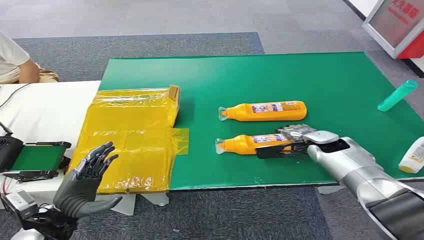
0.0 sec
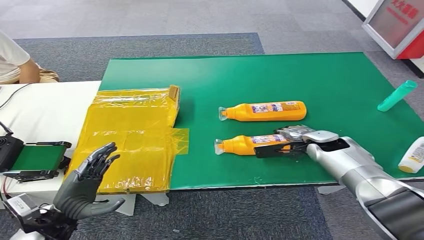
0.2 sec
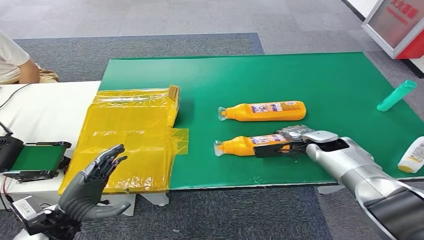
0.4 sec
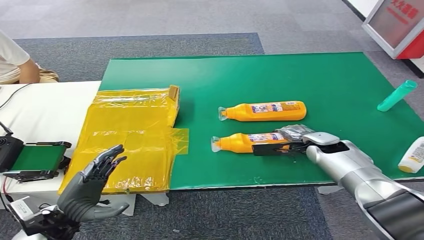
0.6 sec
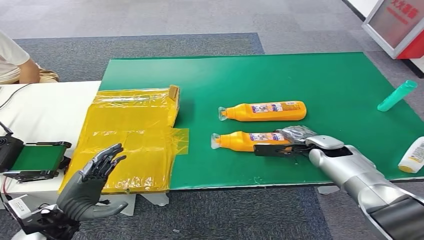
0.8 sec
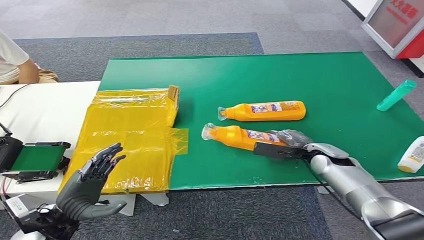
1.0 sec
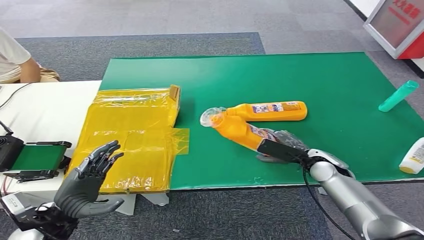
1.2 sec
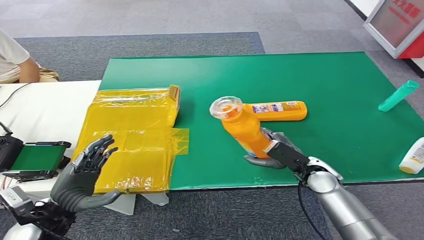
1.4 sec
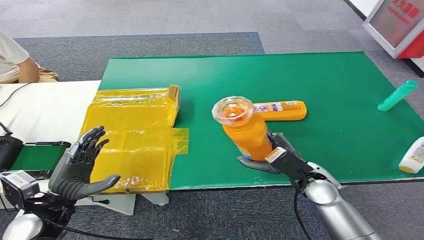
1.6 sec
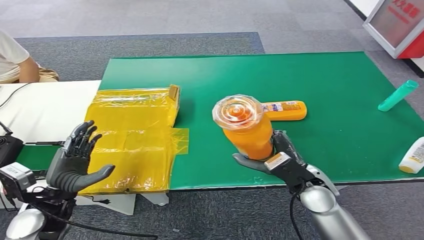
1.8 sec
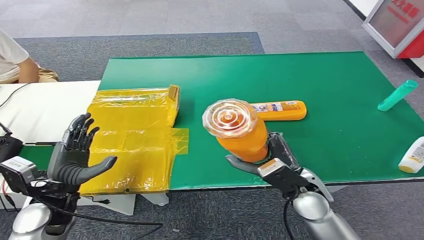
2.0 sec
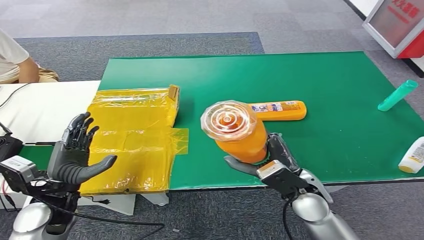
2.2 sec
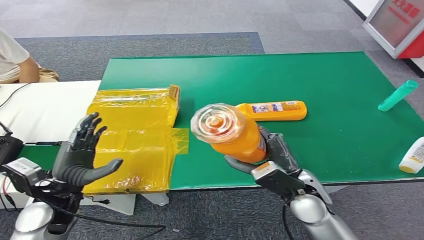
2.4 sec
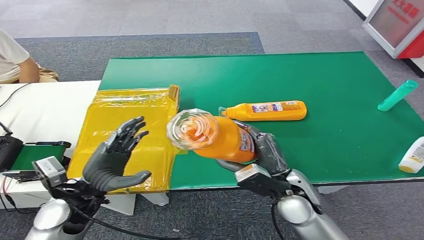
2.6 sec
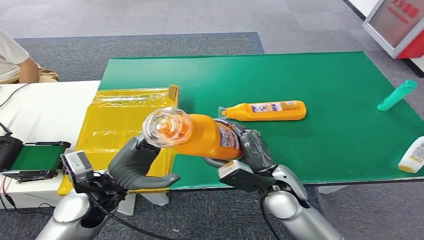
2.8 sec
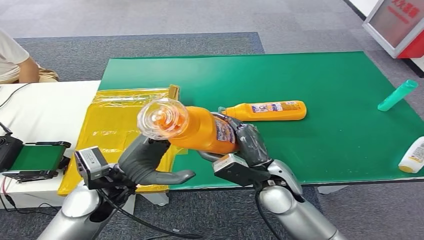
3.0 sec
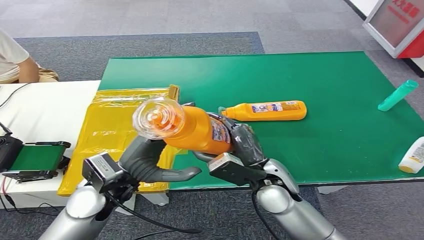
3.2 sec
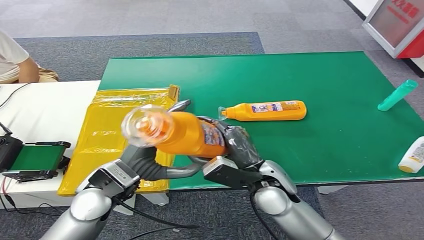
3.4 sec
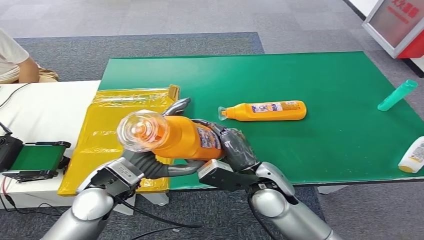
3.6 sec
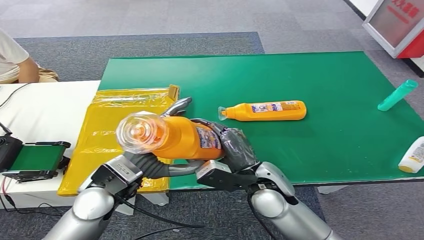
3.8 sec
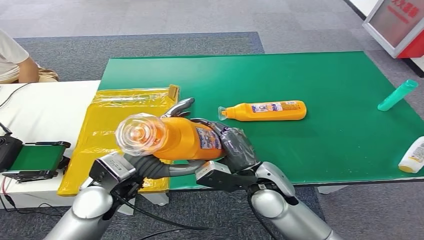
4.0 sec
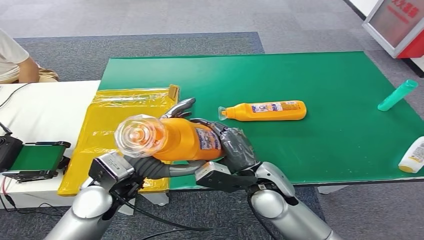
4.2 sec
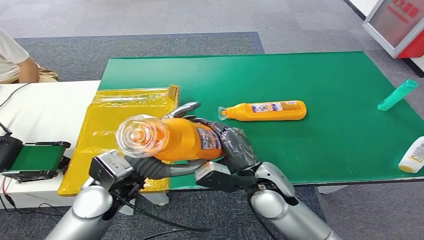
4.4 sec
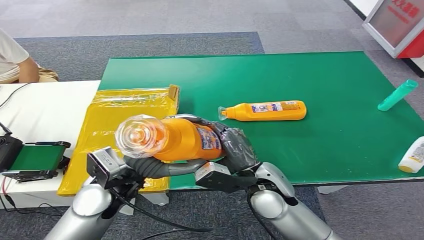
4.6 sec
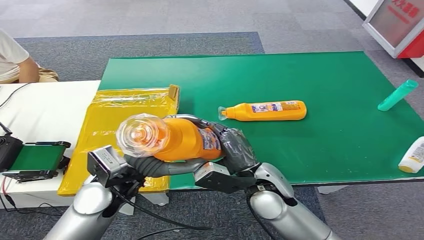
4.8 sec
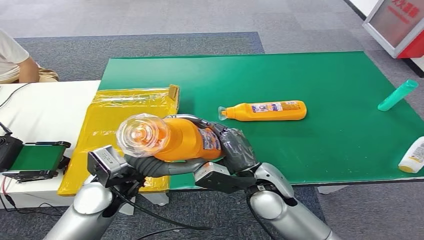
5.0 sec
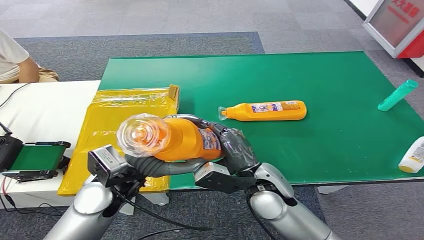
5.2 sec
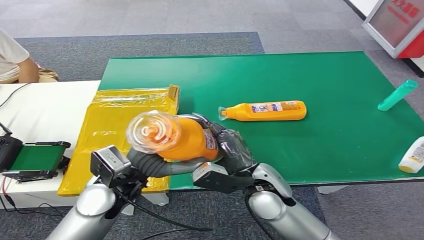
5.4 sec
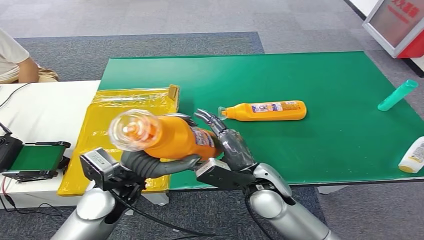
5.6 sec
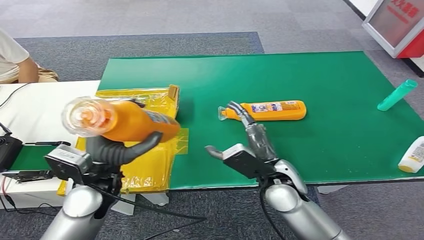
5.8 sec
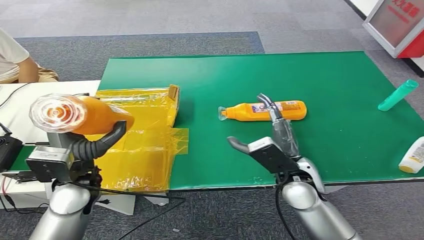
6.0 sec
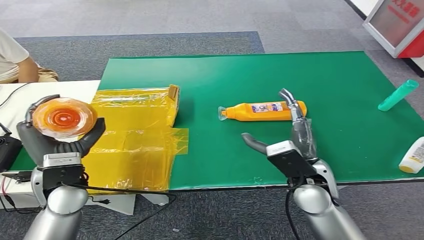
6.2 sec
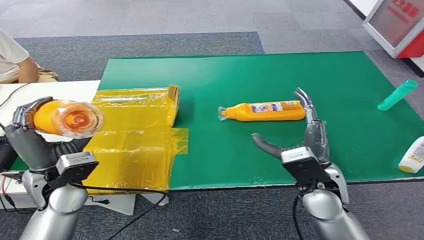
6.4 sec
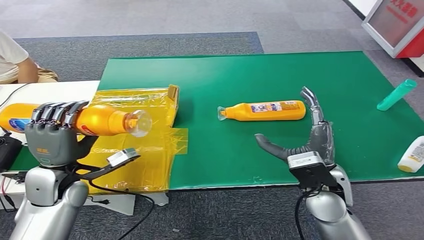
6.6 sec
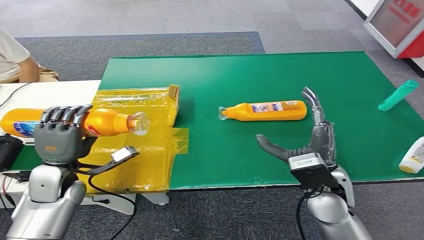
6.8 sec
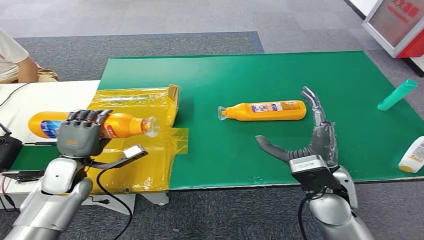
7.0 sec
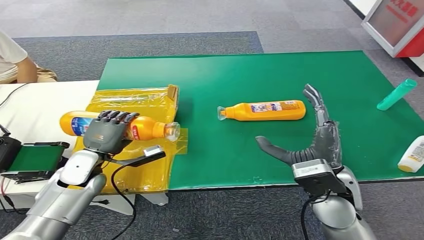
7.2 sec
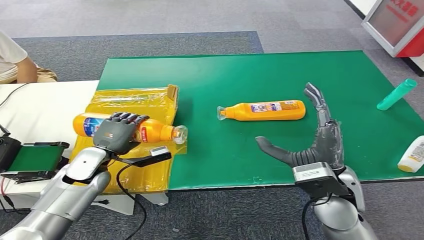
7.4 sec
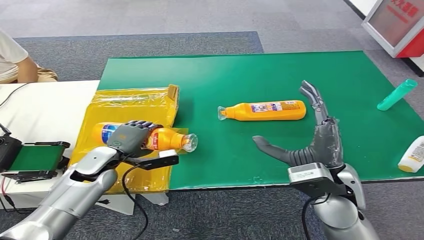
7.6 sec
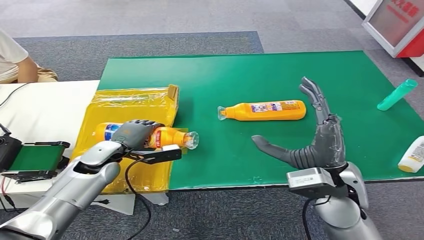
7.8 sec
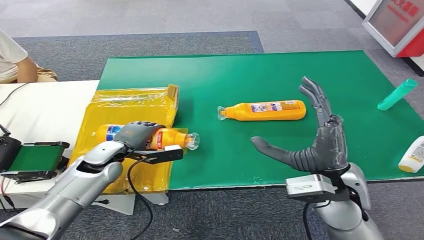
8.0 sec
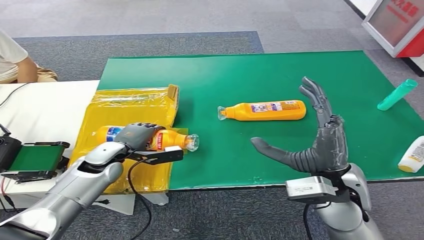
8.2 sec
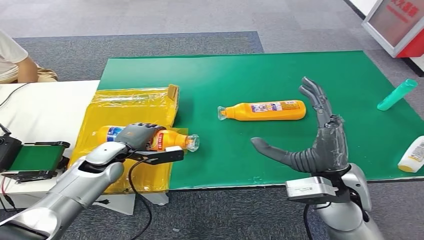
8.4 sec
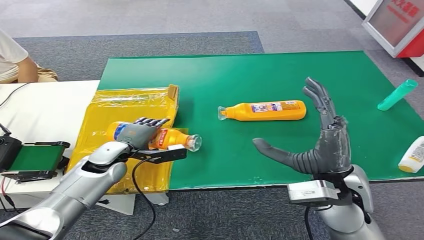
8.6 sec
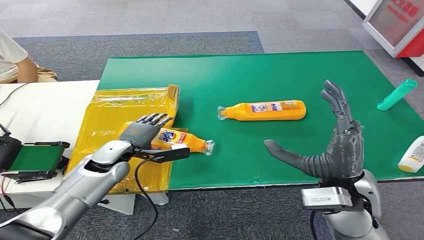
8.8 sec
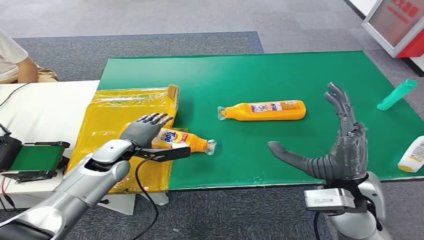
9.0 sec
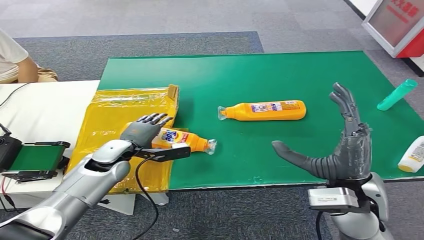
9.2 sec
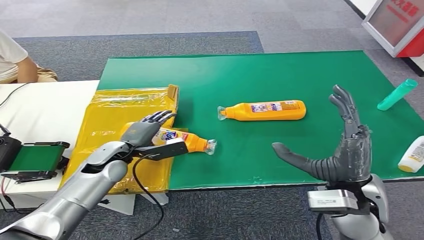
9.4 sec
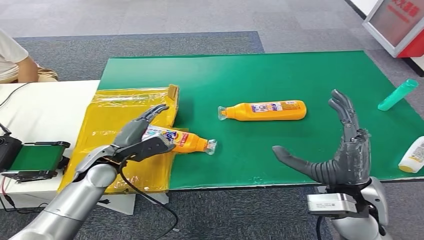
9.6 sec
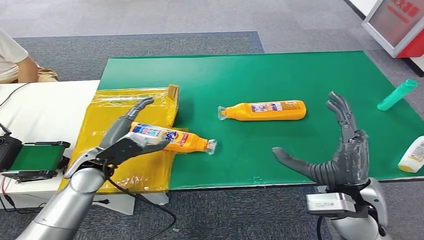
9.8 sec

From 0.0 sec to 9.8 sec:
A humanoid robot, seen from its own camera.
Step, from 0.0 sec to 1.8 sec: Pick up the bottle from the table.
Step, from 4.0 sec to 9.8 sec: Turn the bottle to the front side.
From 2.8 sec to 4.2 sec: The left hand changes place by some 5 cm.
From 4.2 sec to 5.6 sec: The hands move only a little.
From 7.0 sec to 8.4 sec: The left hand moves to the right and forward, some 10 cm.
From 8.4 sec to 9.8 sec: The left hand ends up approximately 5 cm from where it was.
